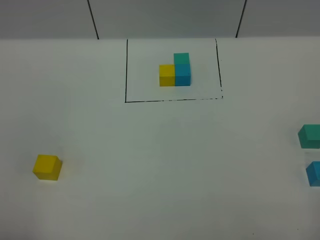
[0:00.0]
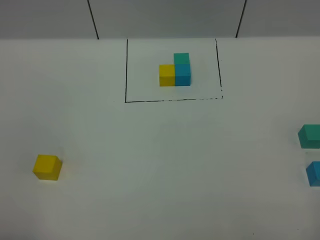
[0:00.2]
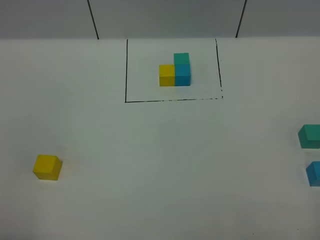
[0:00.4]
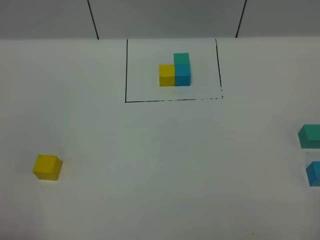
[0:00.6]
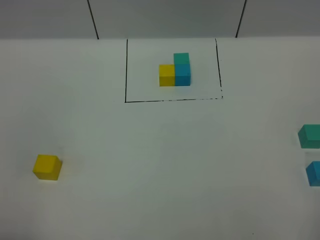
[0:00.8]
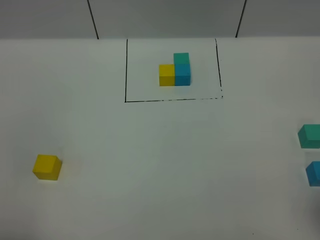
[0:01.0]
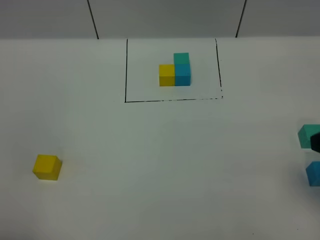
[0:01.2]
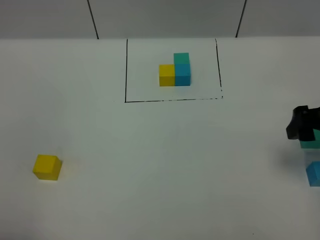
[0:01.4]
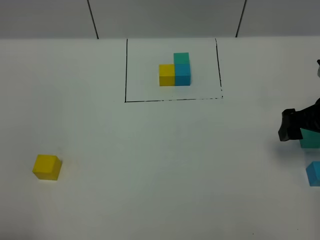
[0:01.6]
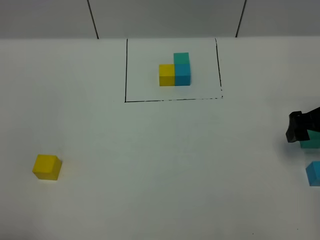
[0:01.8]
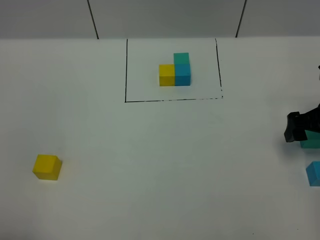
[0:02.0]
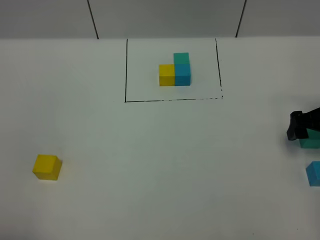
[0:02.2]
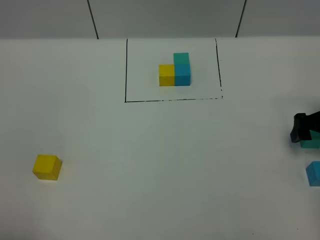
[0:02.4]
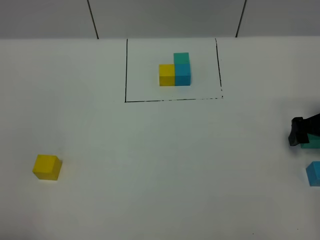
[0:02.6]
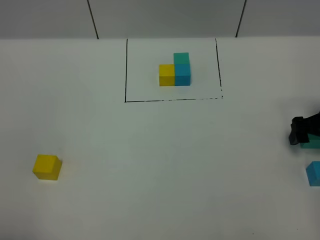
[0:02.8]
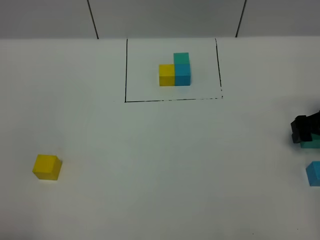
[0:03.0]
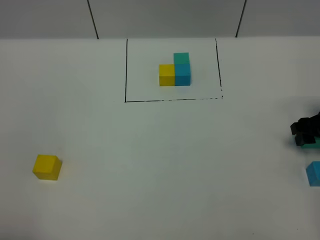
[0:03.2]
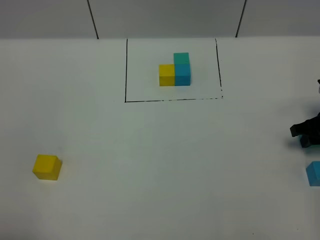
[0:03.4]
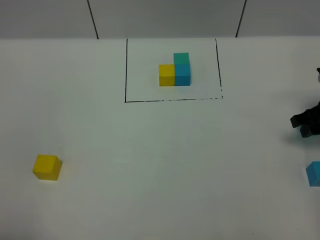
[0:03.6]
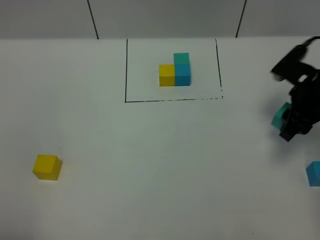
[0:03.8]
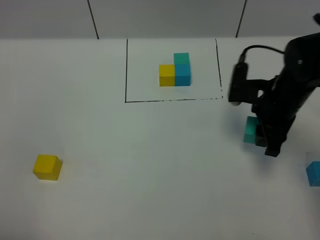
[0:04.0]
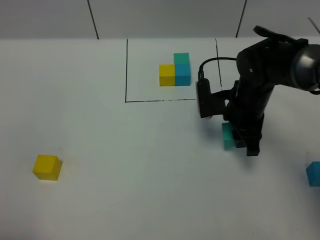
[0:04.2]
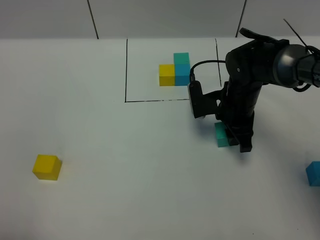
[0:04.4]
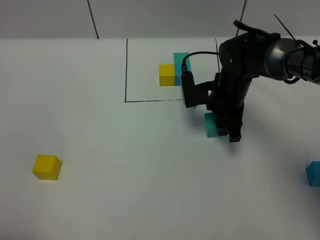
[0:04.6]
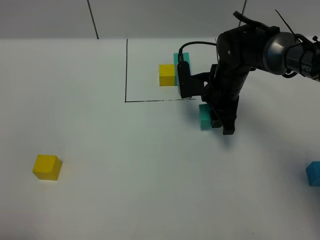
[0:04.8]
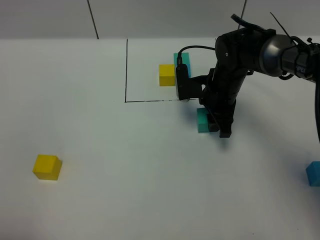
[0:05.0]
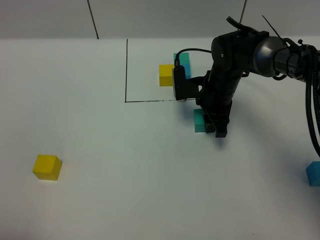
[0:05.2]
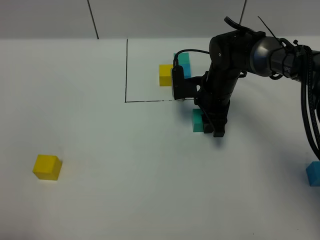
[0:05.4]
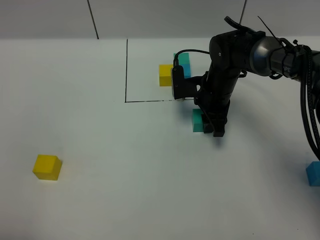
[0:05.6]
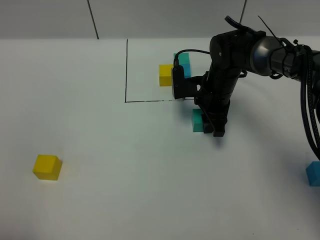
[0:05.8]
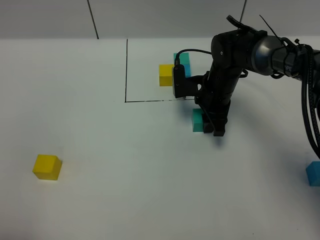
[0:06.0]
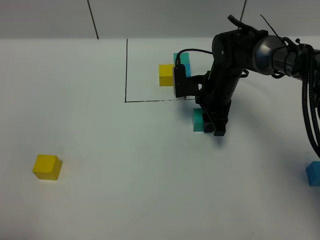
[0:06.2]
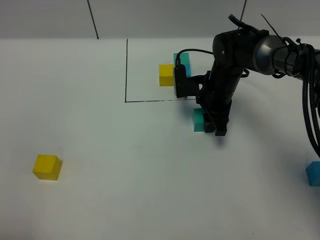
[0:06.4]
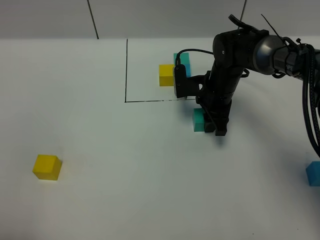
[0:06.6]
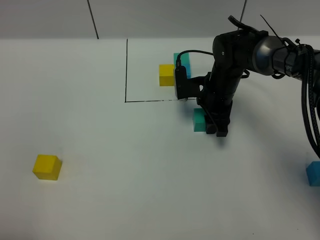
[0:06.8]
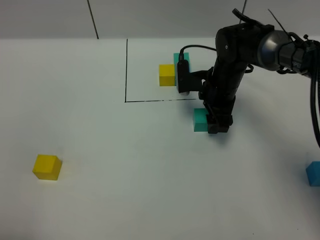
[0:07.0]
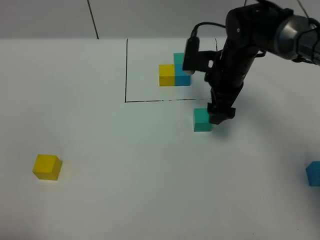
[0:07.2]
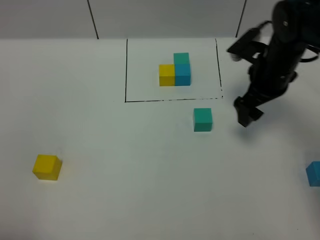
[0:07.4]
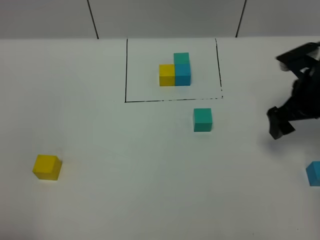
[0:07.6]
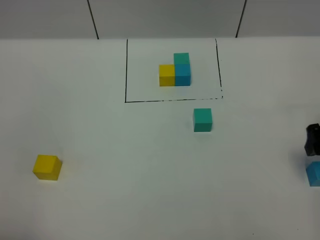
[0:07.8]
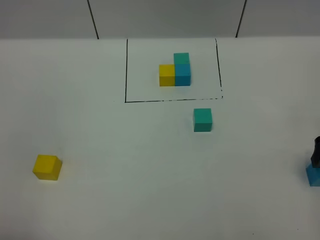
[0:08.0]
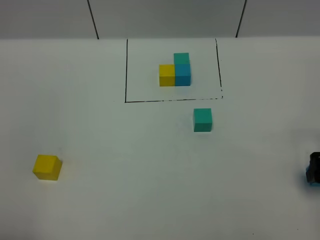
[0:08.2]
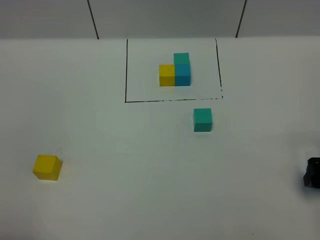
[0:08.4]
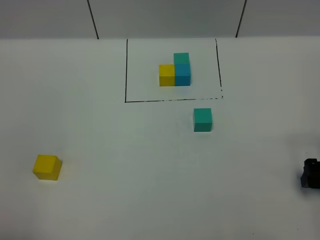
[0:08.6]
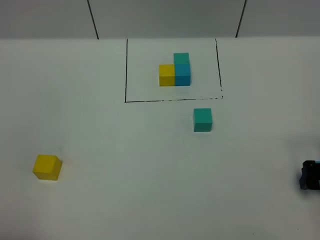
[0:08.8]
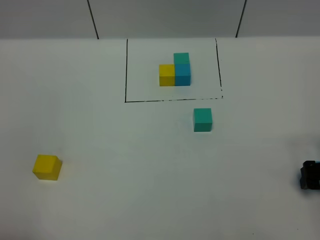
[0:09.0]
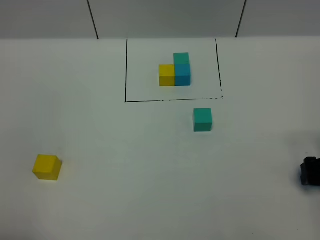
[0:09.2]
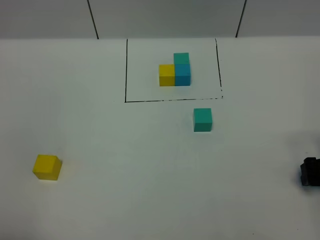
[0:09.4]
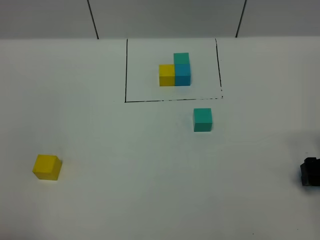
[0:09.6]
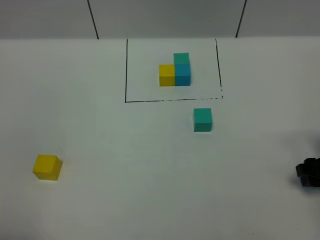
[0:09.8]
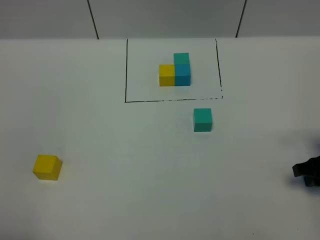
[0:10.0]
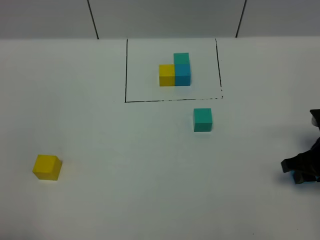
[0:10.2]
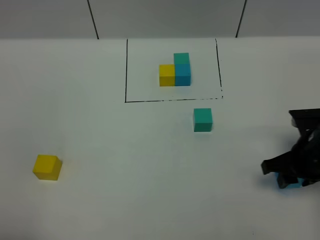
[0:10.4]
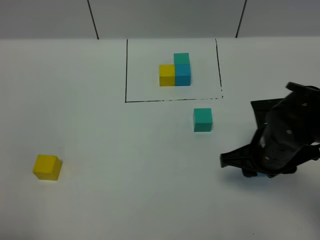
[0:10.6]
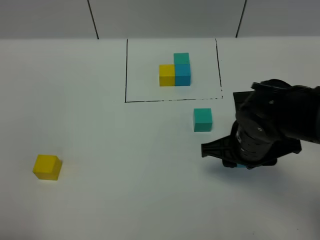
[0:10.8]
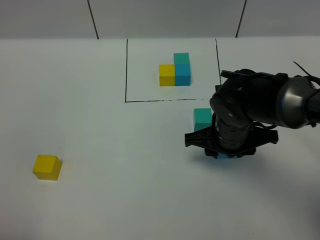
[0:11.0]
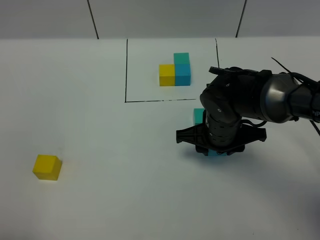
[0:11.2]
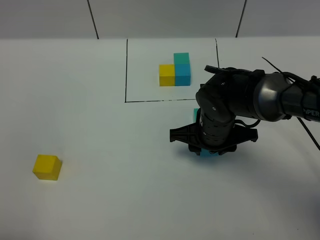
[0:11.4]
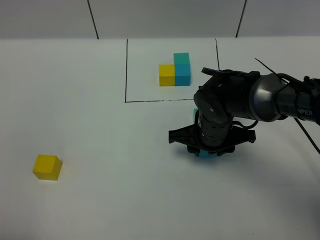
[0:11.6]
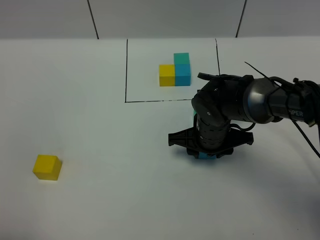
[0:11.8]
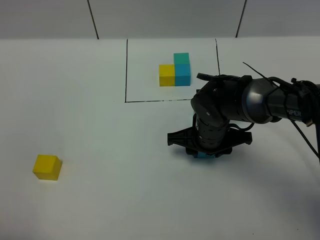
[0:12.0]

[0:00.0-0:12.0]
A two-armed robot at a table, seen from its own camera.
Task of the whole recording: According to the building block template in front, assemble the scattered blocks together.
Step, 0:00.0 to 0:06.2: Put the green build block in the center of the table.
0:00.0 to 0:01.6: The right gripper goes roughly 30 cm forward.
0:01.6 to 0:03.0: The right gripper is displaced downward and to the right by about 10 cm, and closes up.
0:03.0 to 0:04.4: The right gripper is displaced to the left by some 20 cm, and closes its fingers.
0:04.4 to 0:06.0: The right gripper shifts by approximately 5 cm.
0:06.0 to 0:07.6: The right gripper heads to the right, backward and upward, covering some 20 cm, and opens.
0:07.6 to 0:09.0: The right gripper is displaced backward, downward and to the right by about 15 cm.
0:09.0 to 0:10.4: The right gripper travels to the left by some 10 cm, and closes.
0:10.4 to 0:12.0: The right gripper heads to the left and forward, covering roughly 20 cm.

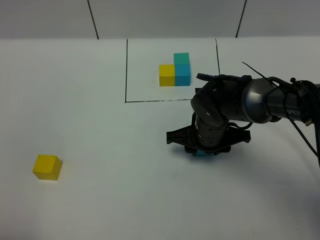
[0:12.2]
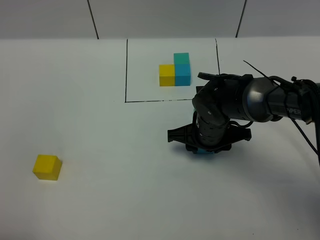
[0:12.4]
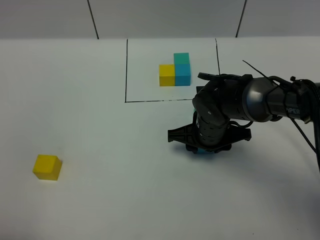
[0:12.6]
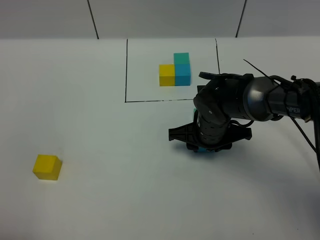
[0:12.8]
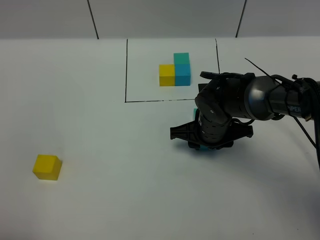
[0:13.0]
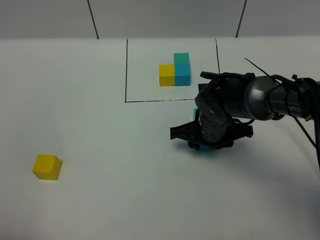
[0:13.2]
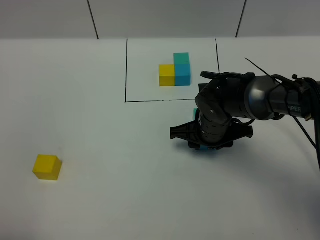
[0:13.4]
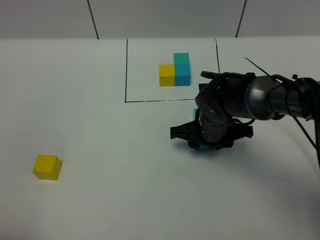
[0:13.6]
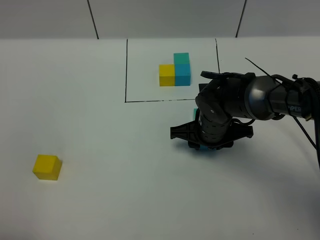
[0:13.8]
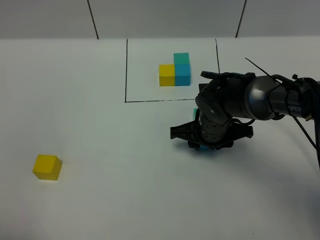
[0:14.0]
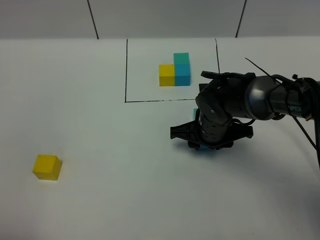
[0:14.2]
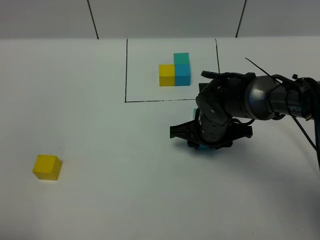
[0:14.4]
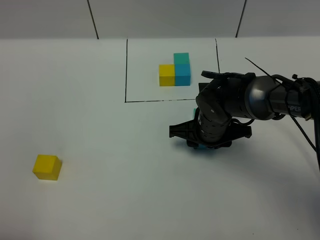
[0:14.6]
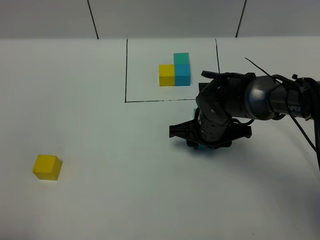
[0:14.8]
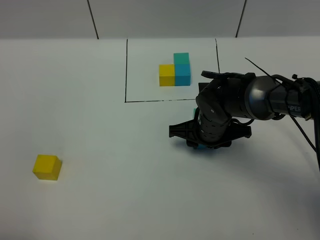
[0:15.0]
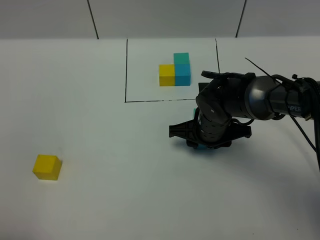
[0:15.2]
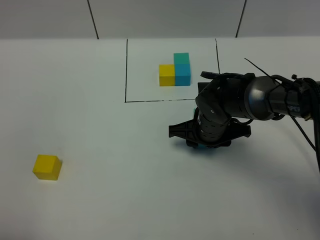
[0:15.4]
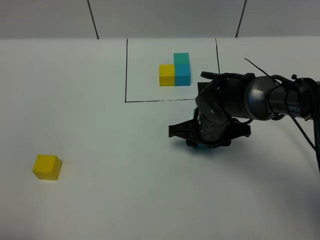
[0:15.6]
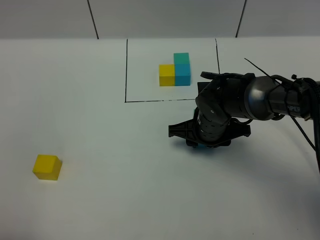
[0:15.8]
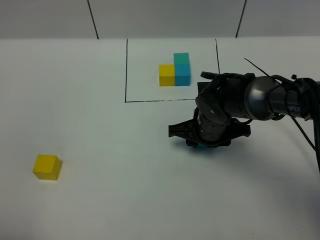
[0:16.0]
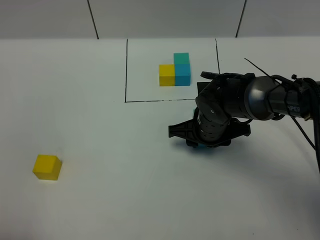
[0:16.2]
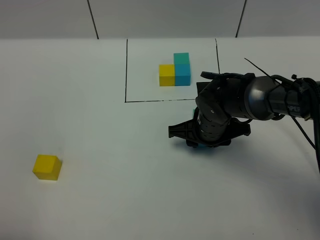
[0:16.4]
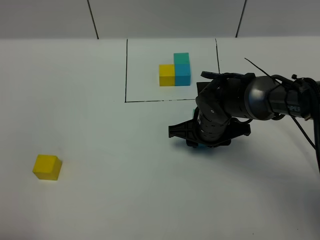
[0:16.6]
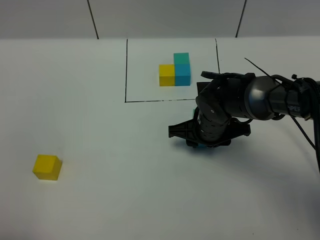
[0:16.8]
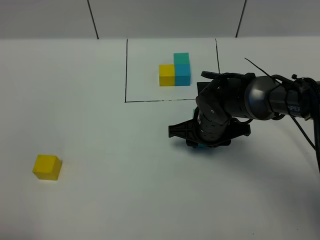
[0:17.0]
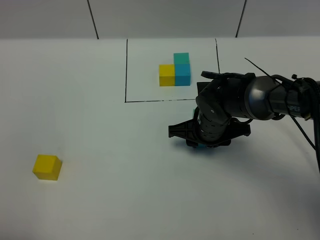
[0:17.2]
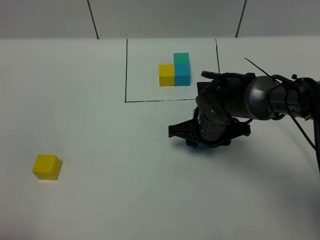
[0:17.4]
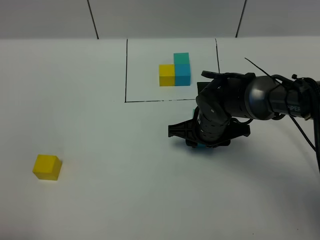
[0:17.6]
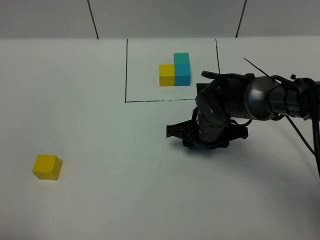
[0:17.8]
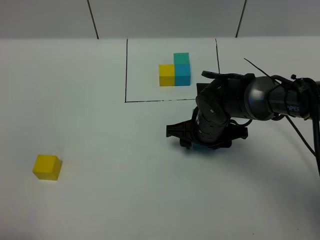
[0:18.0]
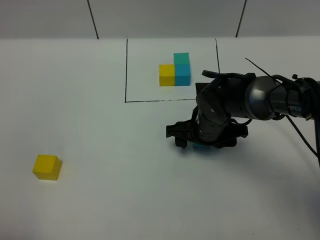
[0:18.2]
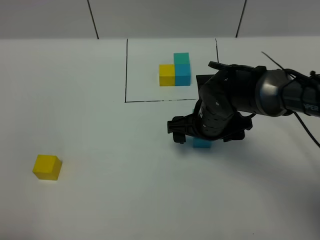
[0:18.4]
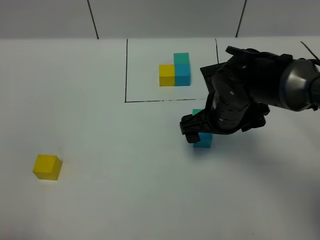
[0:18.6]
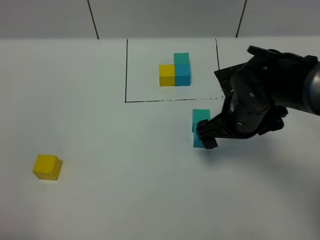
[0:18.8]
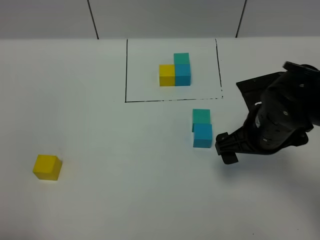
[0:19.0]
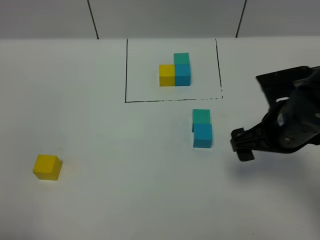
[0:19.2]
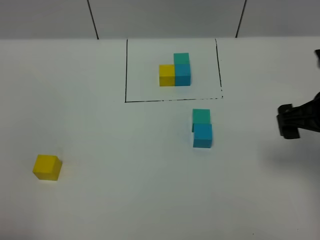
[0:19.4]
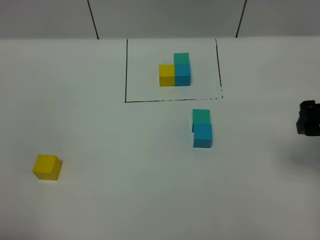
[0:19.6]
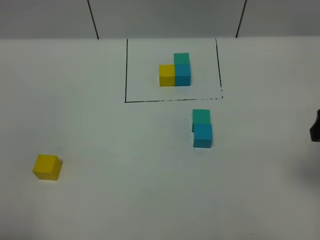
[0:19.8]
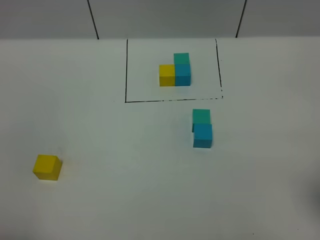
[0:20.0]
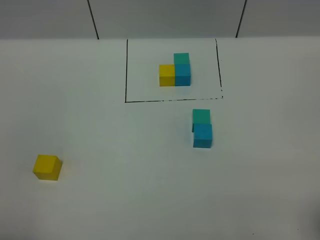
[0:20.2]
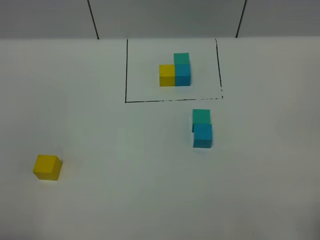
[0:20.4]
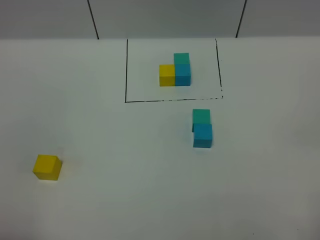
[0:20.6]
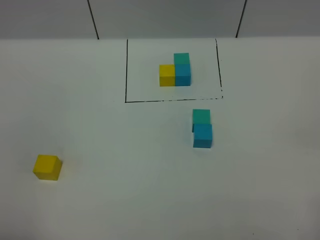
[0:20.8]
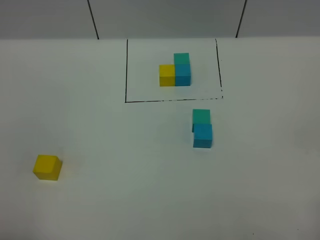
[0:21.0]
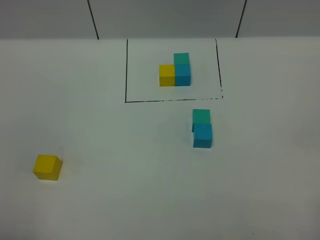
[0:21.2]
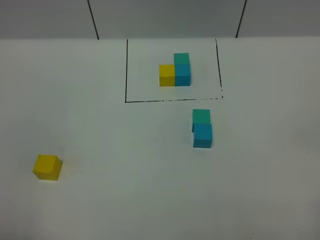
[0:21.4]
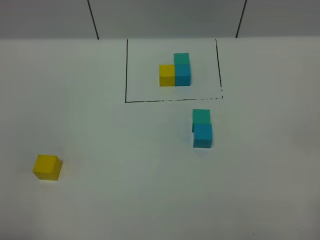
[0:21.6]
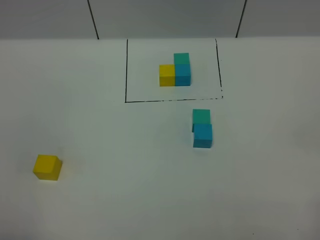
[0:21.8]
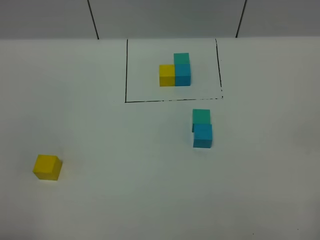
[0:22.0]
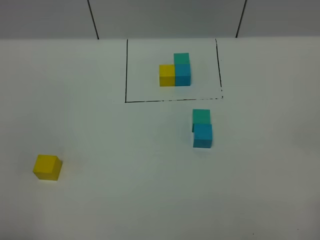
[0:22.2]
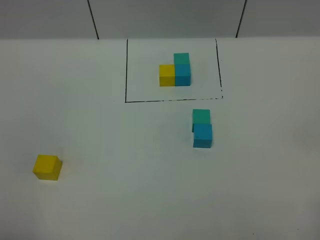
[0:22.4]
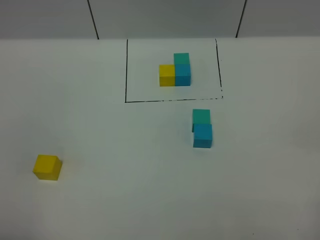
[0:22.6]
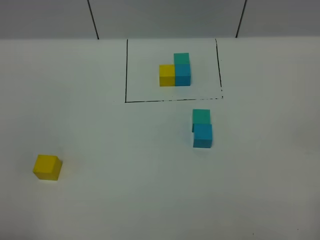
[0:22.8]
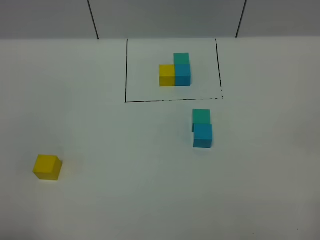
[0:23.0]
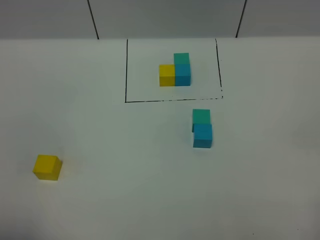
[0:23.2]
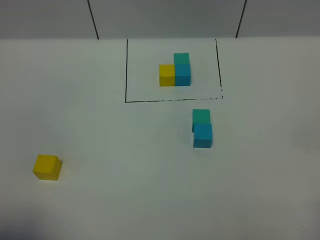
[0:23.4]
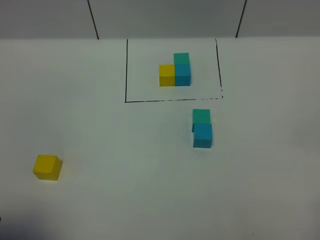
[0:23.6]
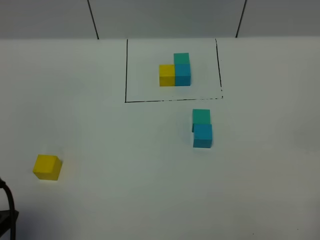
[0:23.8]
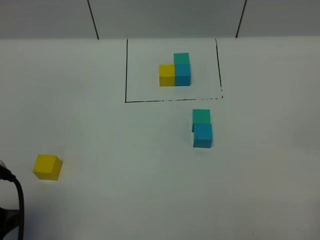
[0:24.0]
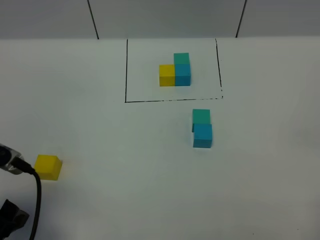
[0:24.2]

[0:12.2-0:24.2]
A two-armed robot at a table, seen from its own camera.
Task of the whole recording: According to the building block template in front, assemble the scattered blocks together.
Step, 0:12.2 to 0:17.8: Put the blue build block on the behind of the green build block.
0:12.2 to 0:16.6: Both grippers stay about where they are.
0:16.6 to 0:18.2: The right gripper opens its fingers.
0:18.2 to 0:19.8: The right gripper goes about 30 cm to the right, upward and backward, and opens its fingers.
0:19.8 to 0:21.2: The right gripper heads backward, covering approximately 20 cm.
0:21.2 to 0:22.6: Neither gripper changes place.
0:22.6 to 0:24.2: The left gripper moves forward, about 15 cm, and opens its fingers.
